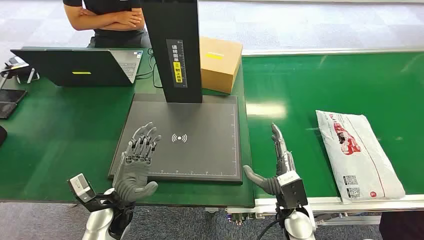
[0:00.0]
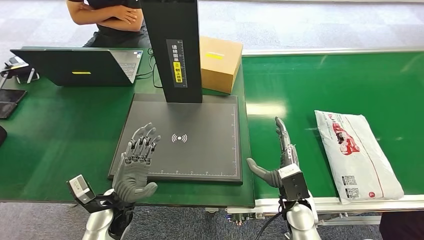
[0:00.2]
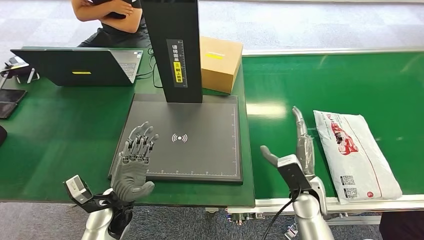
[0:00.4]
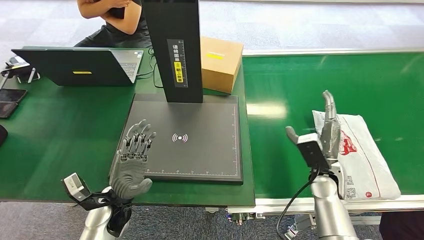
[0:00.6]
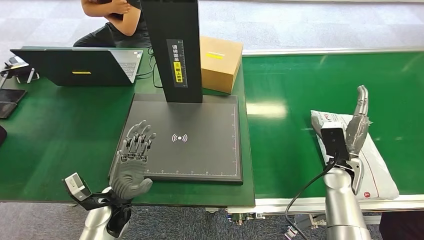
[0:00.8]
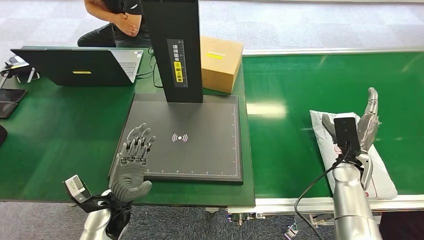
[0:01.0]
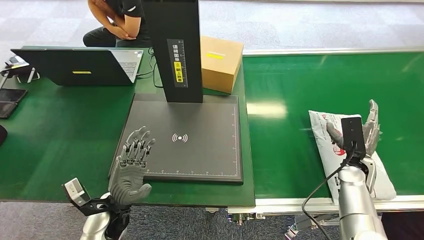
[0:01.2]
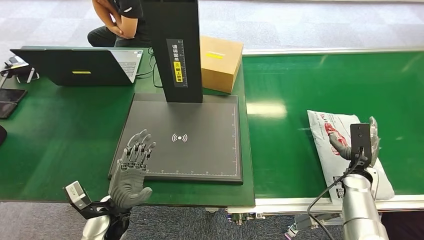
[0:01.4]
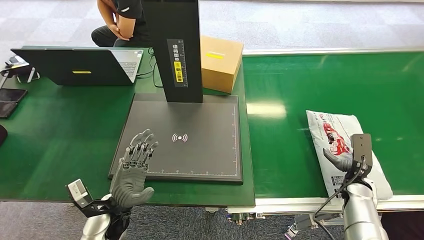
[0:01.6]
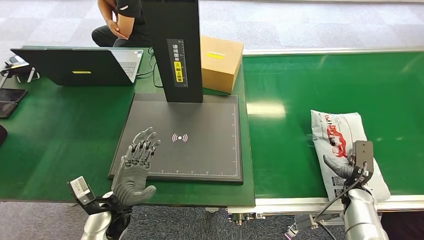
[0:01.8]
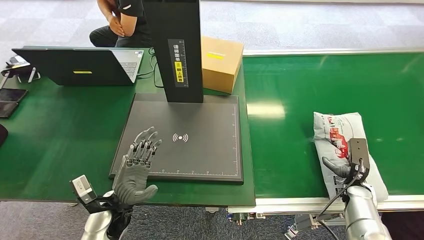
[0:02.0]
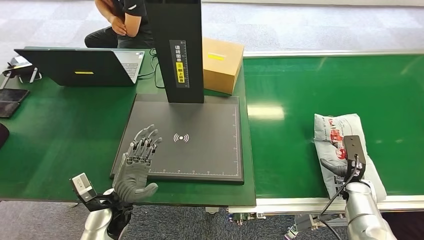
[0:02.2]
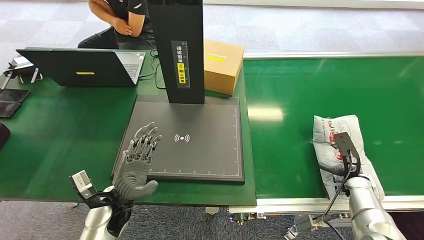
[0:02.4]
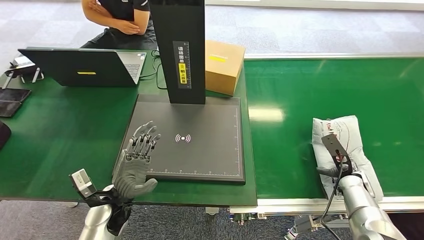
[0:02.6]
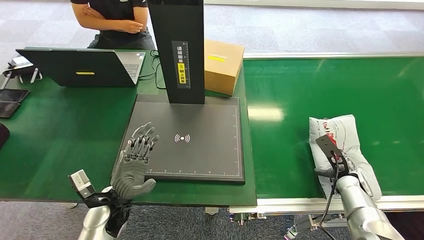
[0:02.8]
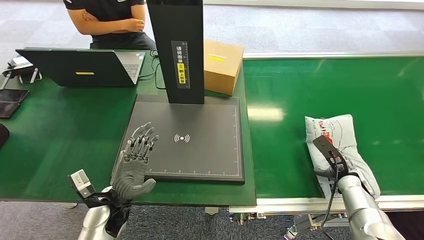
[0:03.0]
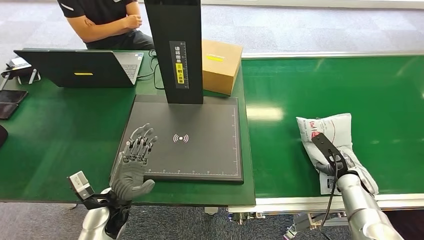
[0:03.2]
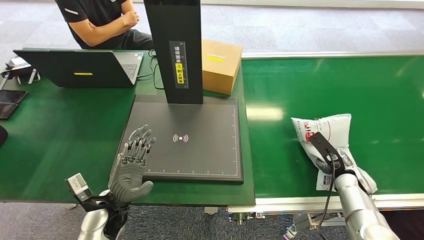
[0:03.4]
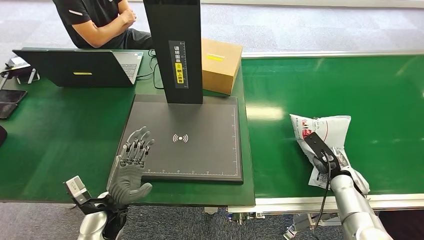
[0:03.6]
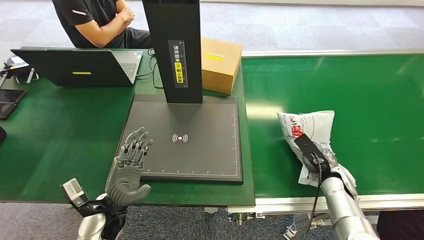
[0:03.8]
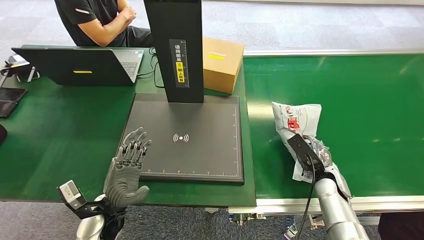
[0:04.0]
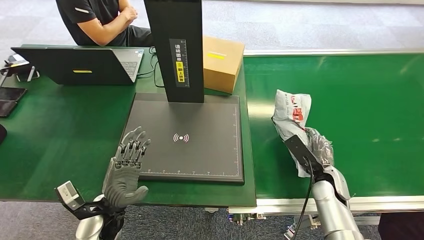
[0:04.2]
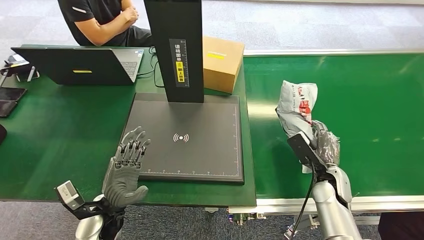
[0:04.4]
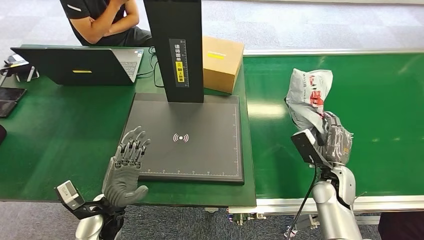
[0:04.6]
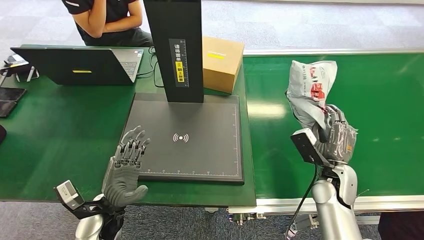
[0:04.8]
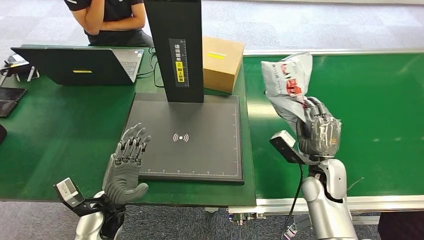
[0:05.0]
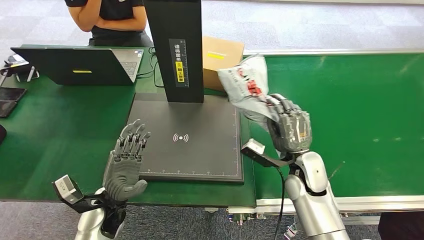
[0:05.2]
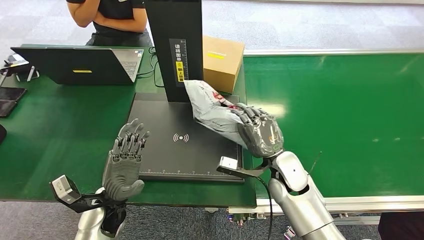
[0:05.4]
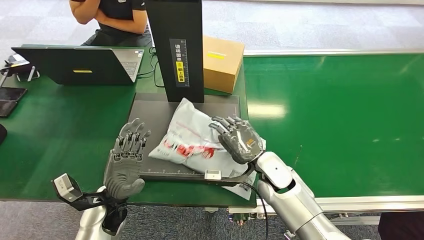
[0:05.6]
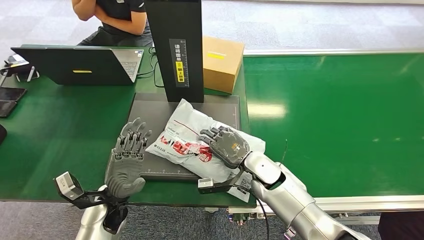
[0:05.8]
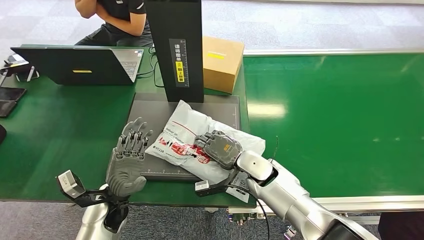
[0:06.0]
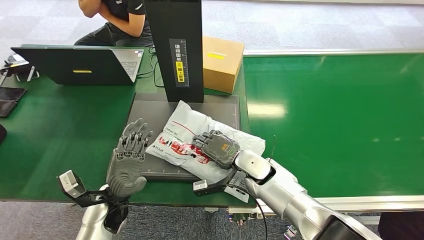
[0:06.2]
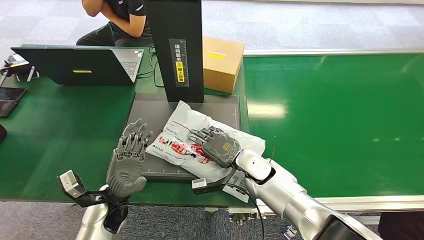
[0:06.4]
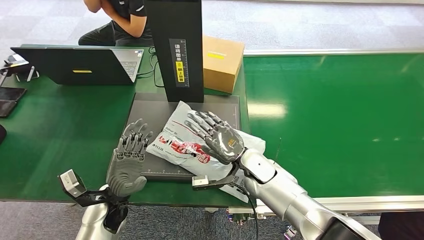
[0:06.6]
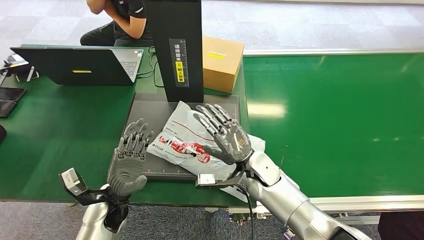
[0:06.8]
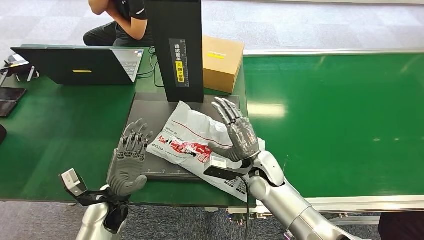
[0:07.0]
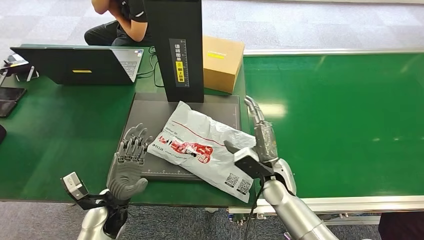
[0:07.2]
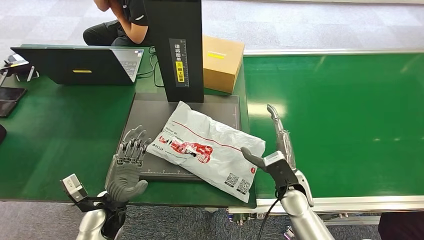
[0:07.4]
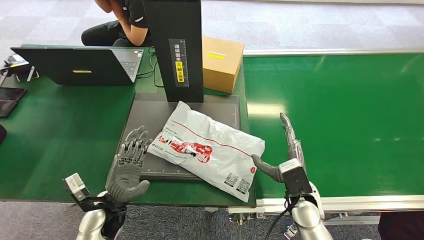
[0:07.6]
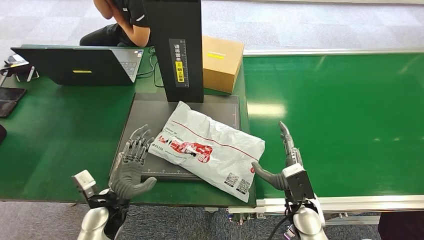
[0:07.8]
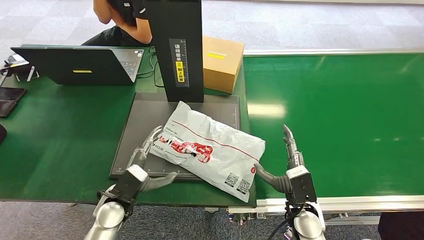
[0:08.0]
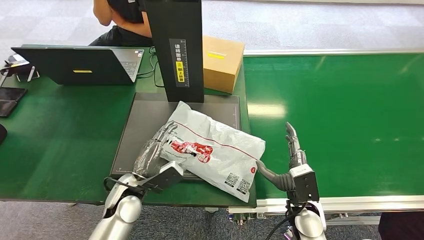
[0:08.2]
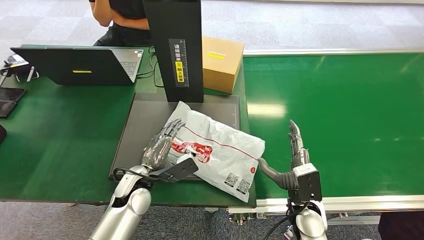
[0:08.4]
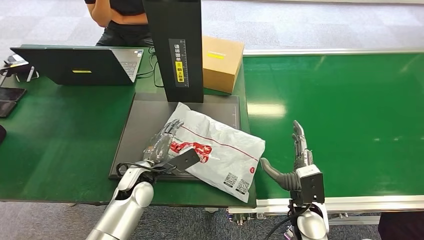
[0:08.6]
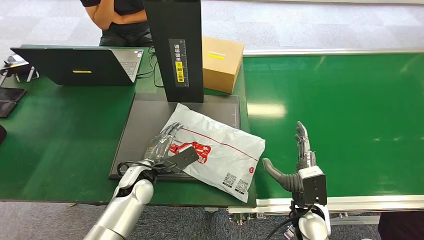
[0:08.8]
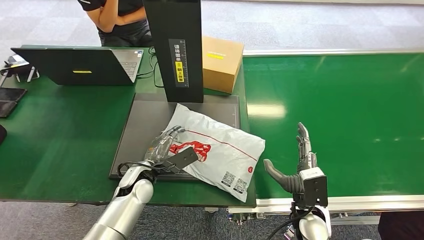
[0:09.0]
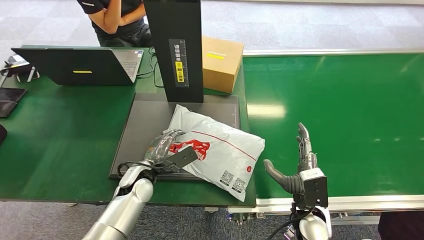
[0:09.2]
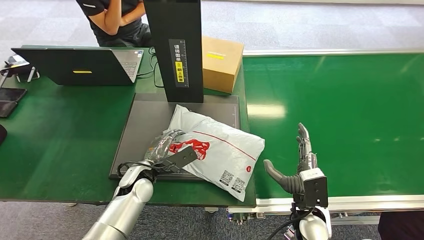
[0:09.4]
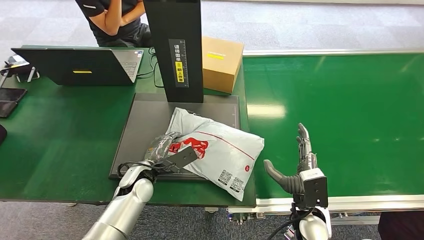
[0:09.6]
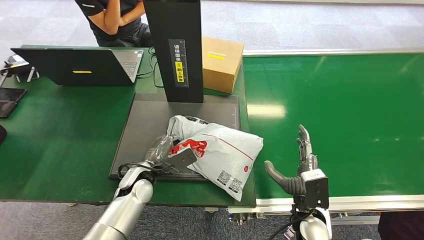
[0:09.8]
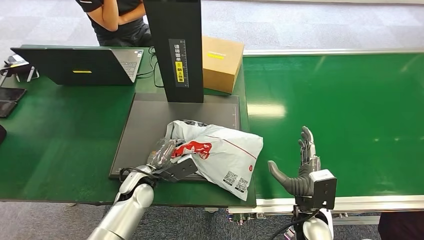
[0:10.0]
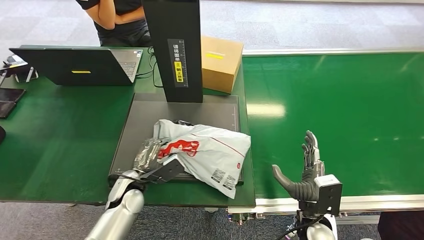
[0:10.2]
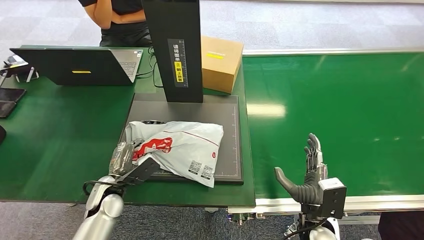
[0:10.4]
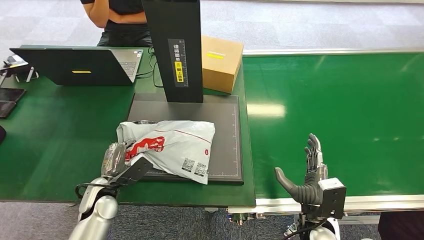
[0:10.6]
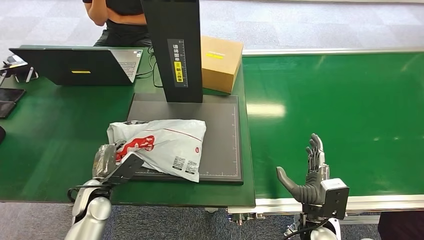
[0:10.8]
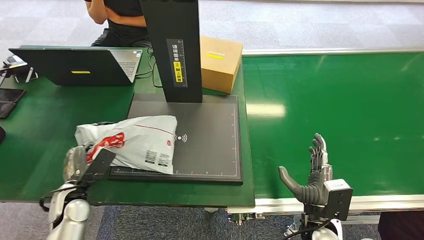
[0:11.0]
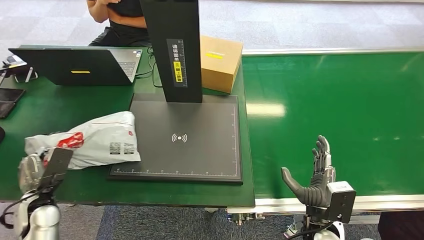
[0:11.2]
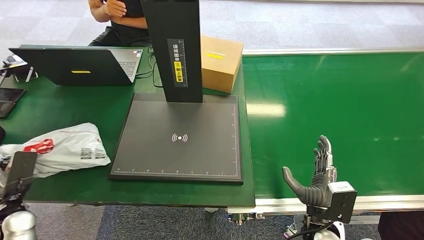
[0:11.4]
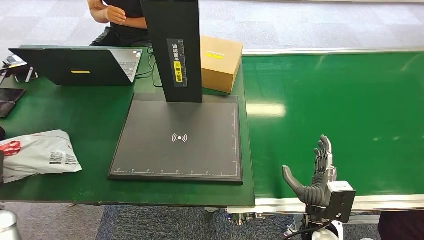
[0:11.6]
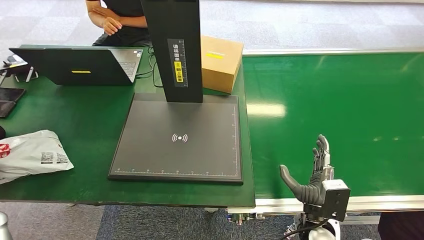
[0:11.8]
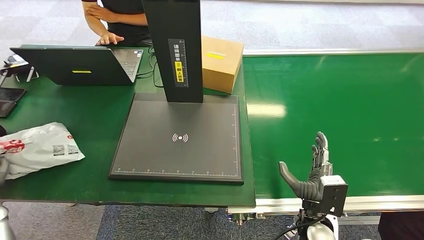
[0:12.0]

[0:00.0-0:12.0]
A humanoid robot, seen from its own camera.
Step, 0:00.0 to 0:04.2: Pick up the package from the conveyor belt.
Step, 0:04.6 to 0:07.8: Place the package onto the inbound machine.
Step, 0:08.0 to 0:10.6: Pick up the package from the inbound machine.
0:06.0 to 0:07.6: The right hand travels to the right and backward by roughly 15 cm.
0:07.6 to 0:09.0: The left hand goes some 10 cm forward and to the right.
0:09.0 to 0:10.4: The left hand moves to the left, about 10 cm.
0:10.4 to 0:12.0: The left hand moves to the left, some 25 cm.

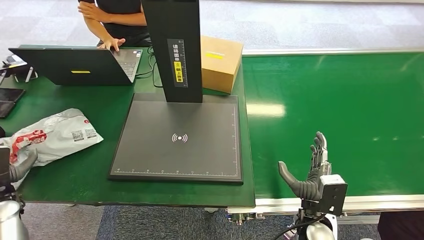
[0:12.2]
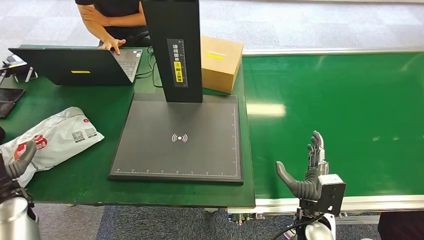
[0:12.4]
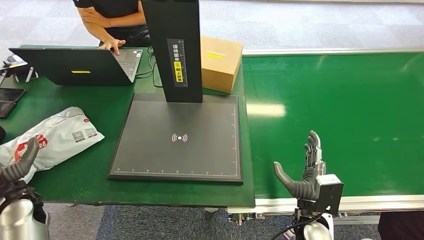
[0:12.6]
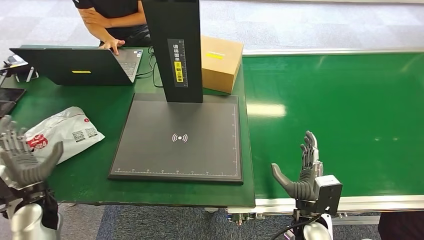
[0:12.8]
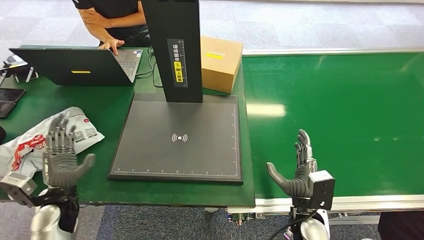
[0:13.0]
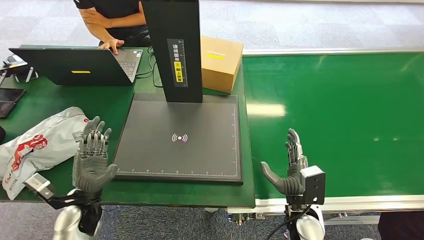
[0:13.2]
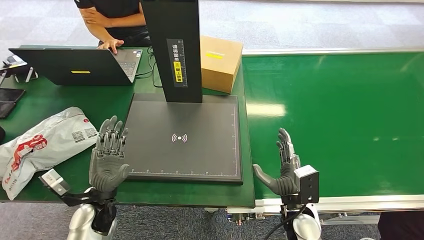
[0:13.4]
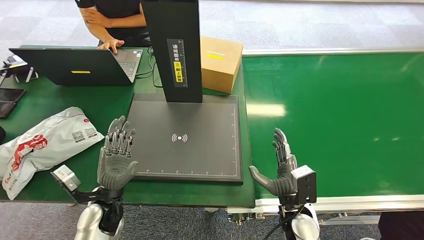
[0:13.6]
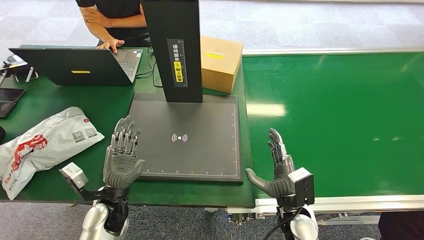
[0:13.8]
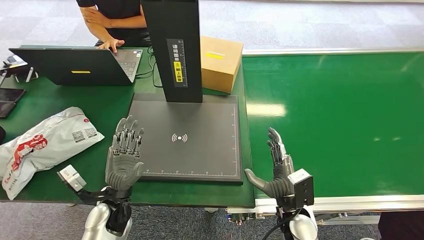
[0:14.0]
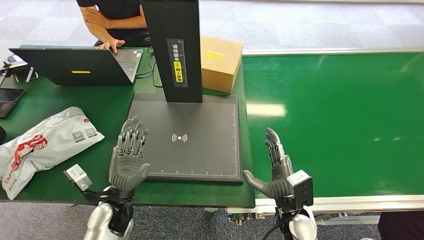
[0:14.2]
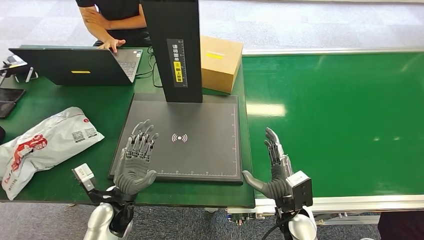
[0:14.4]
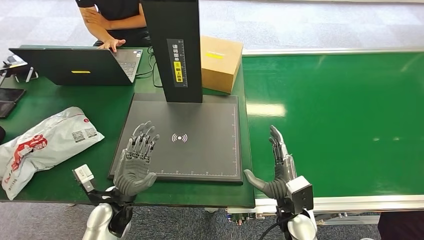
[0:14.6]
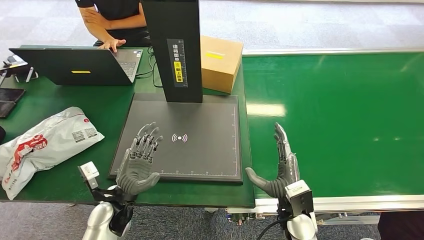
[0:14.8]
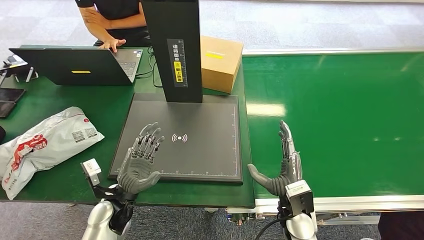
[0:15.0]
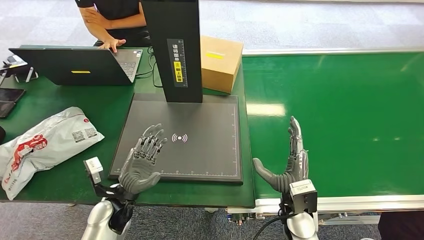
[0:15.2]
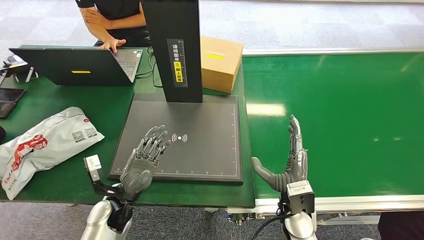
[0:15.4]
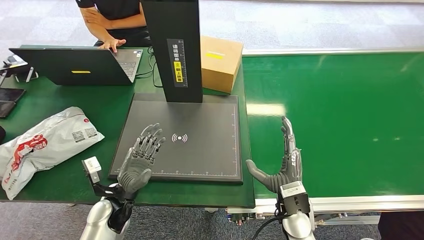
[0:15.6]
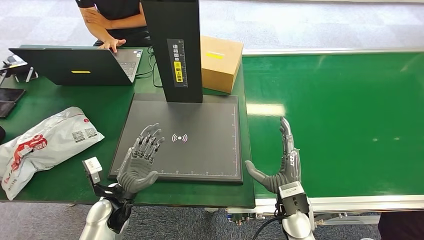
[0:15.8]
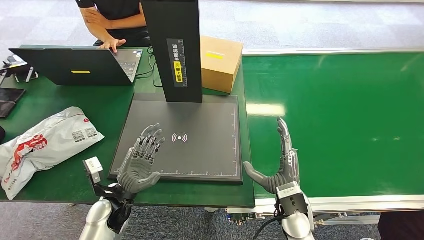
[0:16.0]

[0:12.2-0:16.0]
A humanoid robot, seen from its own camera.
Step, 0:12.2 to 0:16.0: Place the package into the parcel locker.
0:12.2 to 0:13.4: The left hand travels to the right by some 25 cm.
0:13.4 to 0:14.8: There are only small adjustments of the hands.
0:14.8 to 0:16.0: The hands make only small movements.

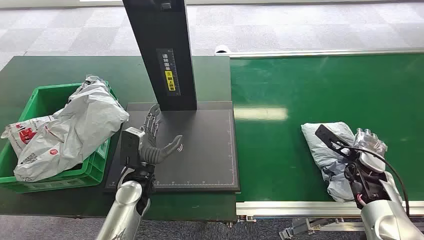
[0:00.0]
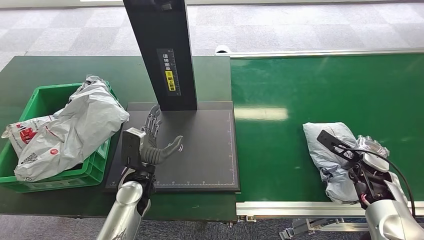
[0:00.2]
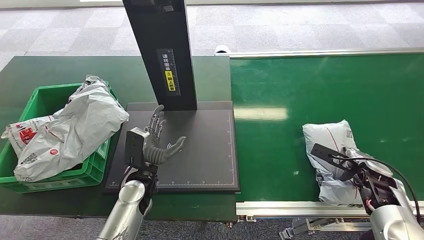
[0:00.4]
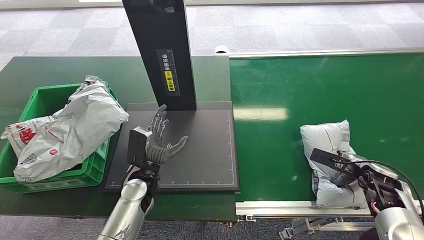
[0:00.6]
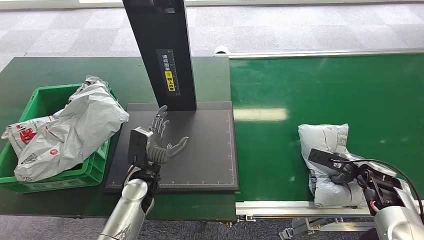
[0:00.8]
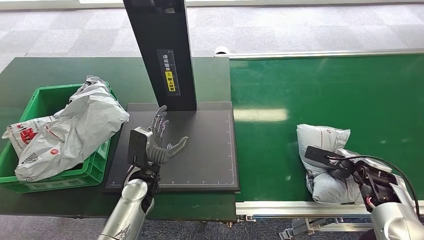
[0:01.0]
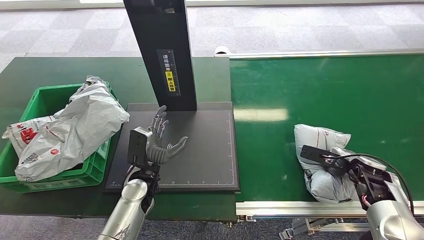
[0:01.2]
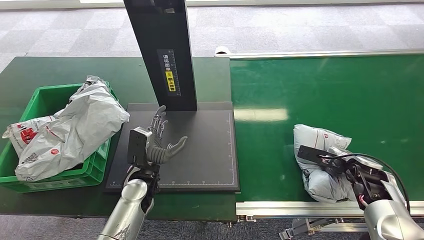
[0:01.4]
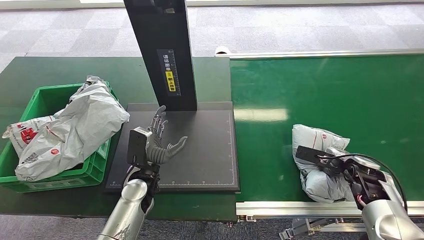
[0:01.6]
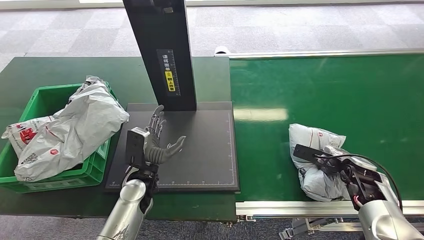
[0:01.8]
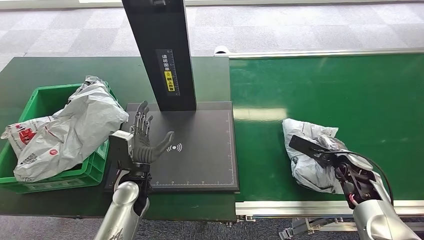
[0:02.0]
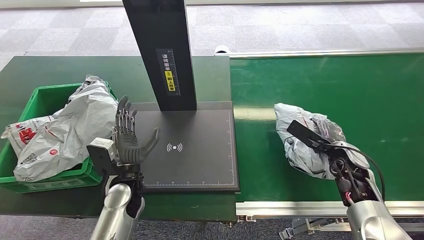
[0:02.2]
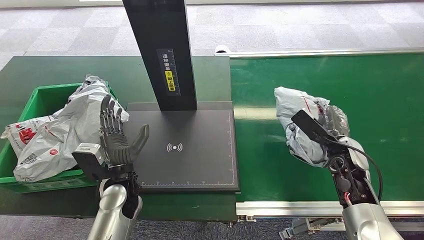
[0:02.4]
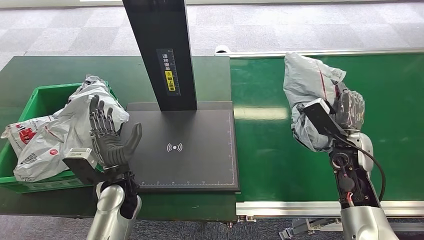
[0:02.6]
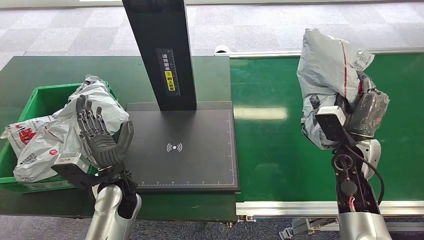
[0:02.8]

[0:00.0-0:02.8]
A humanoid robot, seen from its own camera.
Step, 0:00.0 to 0:02.6: Pick up the package from the conveyor belt.
